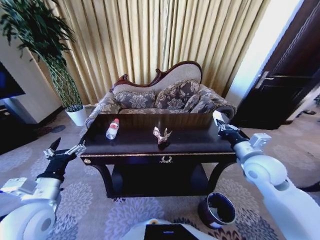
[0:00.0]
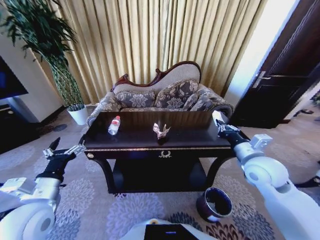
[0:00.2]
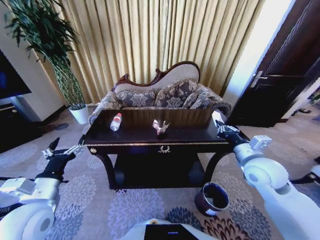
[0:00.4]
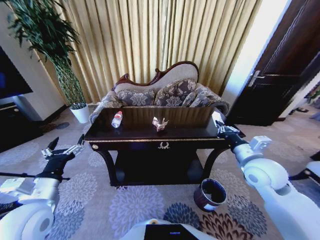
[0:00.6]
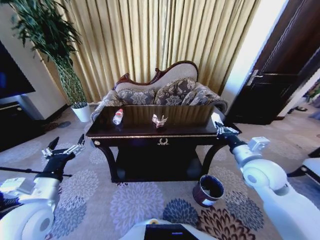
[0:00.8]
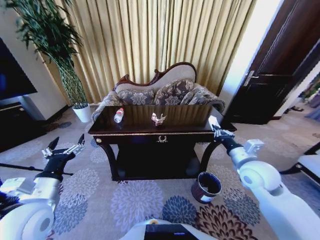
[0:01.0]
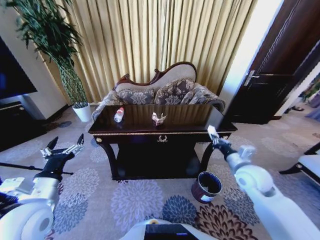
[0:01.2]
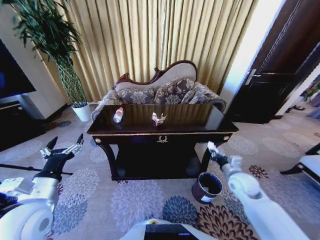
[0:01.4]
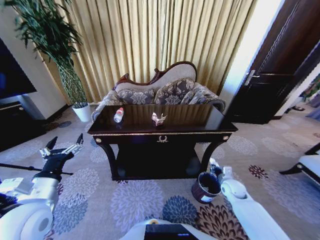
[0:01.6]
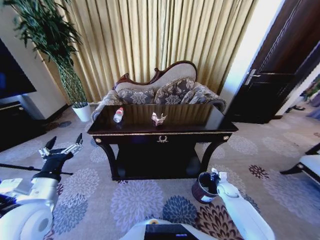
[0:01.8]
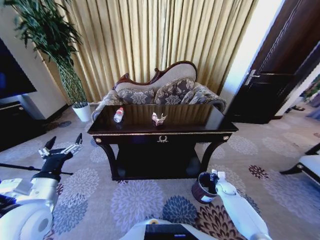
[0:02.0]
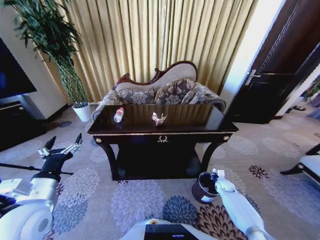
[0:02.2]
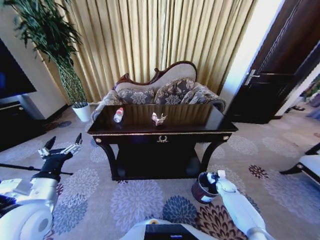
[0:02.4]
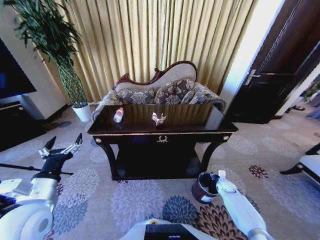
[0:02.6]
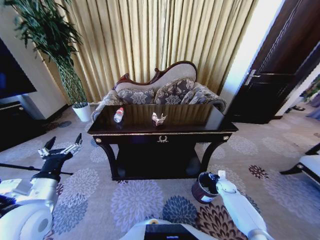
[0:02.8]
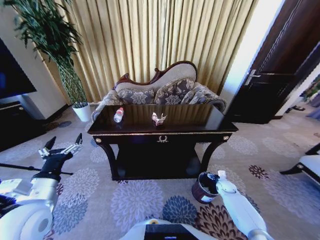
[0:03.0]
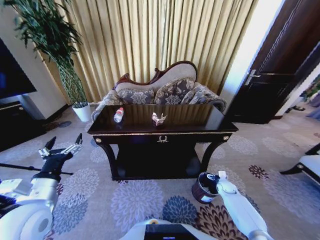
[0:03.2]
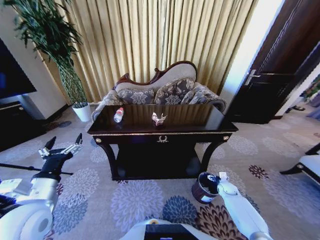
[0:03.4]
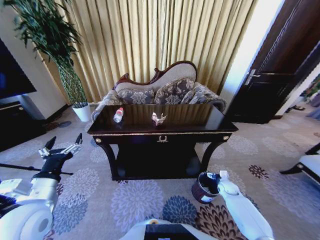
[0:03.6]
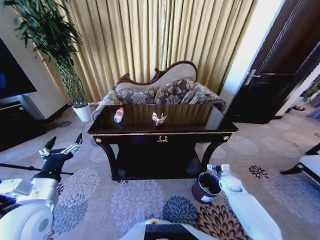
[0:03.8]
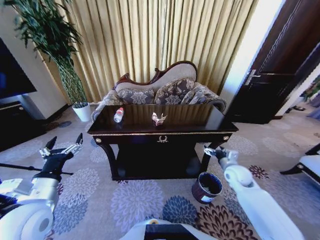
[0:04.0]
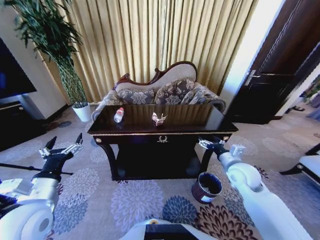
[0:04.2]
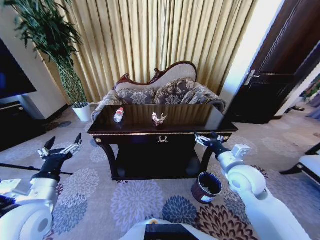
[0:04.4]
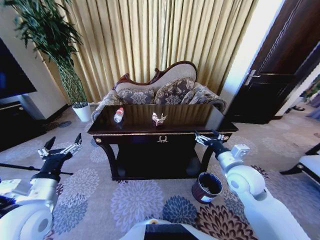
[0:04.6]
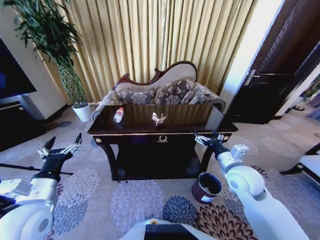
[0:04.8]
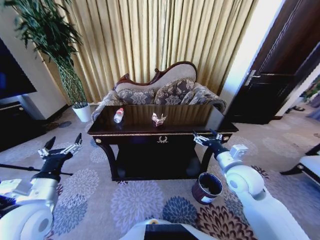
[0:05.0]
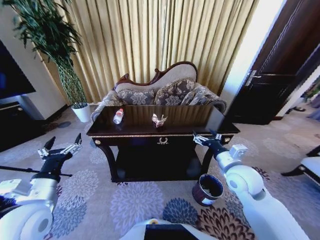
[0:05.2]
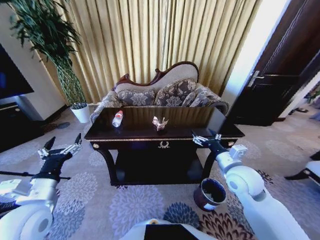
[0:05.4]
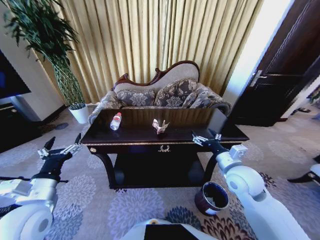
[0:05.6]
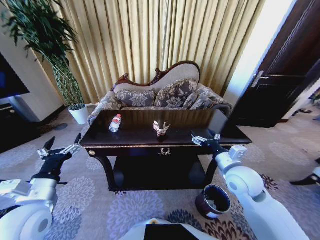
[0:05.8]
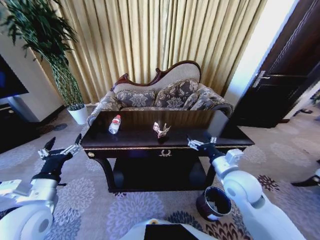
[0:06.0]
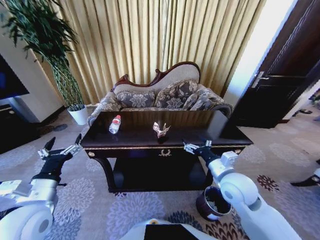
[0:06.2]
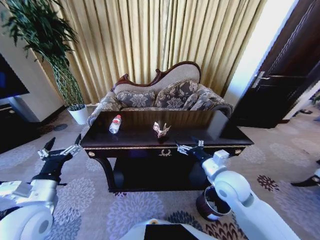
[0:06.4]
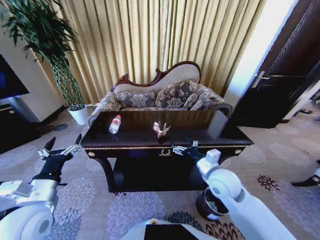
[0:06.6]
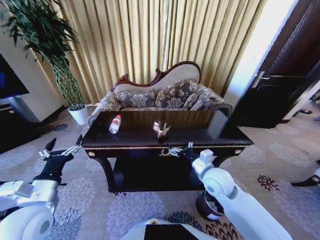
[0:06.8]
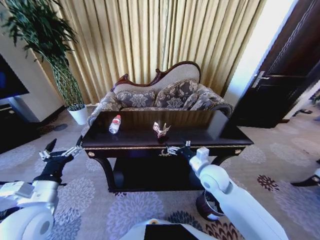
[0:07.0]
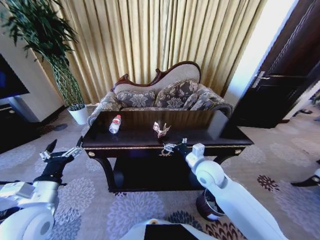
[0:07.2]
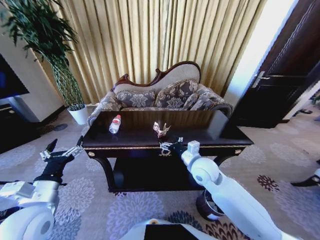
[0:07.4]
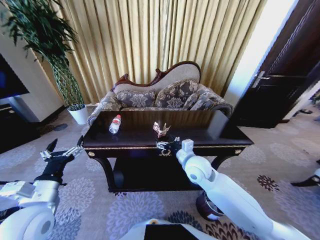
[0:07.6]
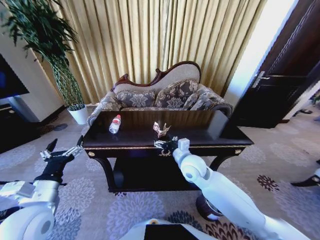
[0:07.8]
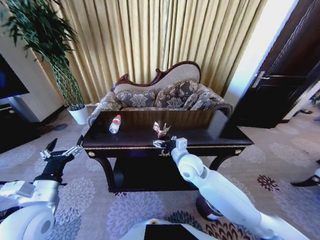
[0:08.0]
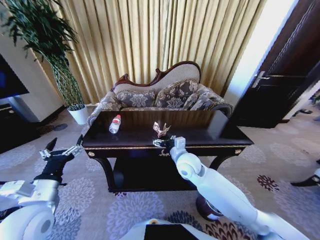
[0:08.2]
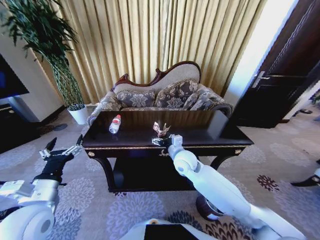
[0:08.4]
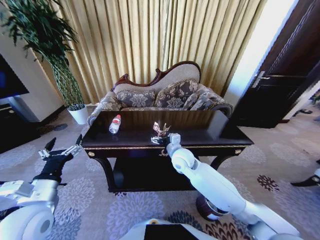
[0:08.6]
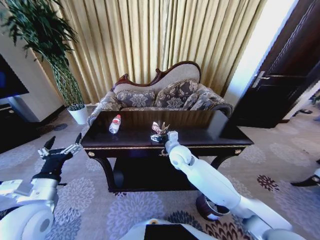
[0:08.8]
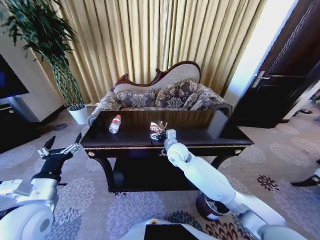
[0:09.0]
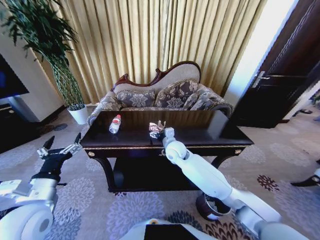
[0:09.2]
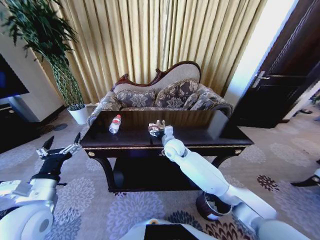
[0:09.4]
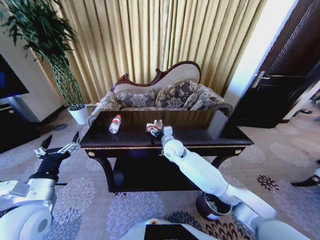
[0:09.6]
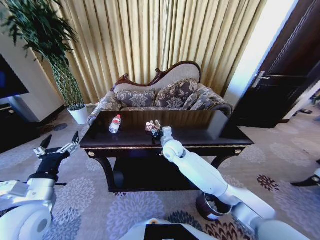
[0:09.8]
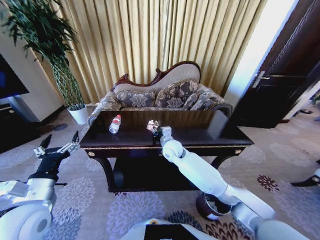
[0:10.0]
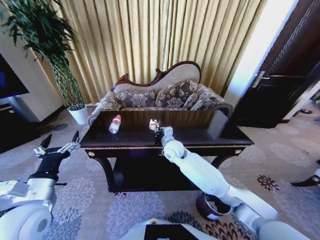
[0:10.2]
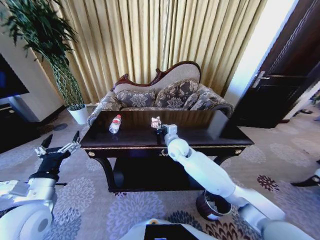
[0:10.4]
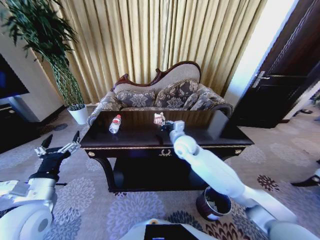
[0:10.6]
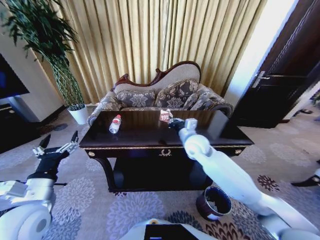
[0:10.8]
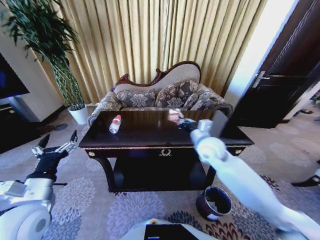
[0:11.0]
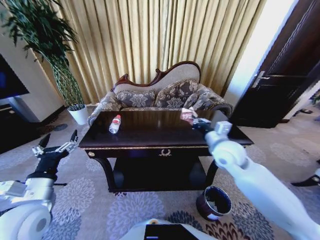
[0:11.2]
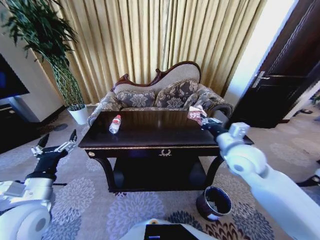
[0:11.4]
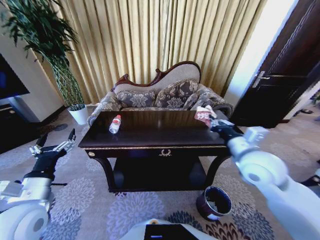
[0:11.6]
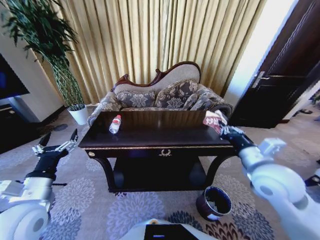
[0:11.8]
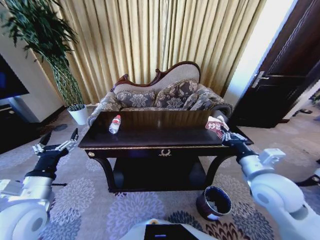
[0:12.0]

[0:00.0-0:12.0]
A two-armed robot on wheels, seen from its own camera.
Task of the whole recording: Move to the front of the table and place the trash on the table into the trash bin.
0:00.0 to 0:01.6: The right gripper is displaced downward by about 25 cm.
0:01.6 to 0:03.0: The right gripper shifts about 10 cm downward, and opens up.
0:03.0 to 0:04.4: The right gripper goes roughly 35 cm upward and to the left.
0:06.0 to 0:07.6: The right gripper moves to the left and forward, approximately 15 cm.
0:07.6 to 0:09.0: The right gripper travels forward and to the left by some 10 cm.
0:09.0 to 0:10.4: The right gripper closes.
0:10.4 to 0:12.0: The right gripper travels to the right and backward by some 30 cm.

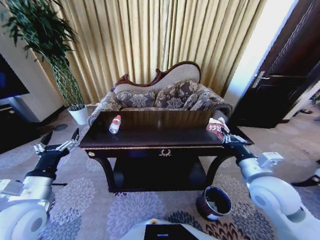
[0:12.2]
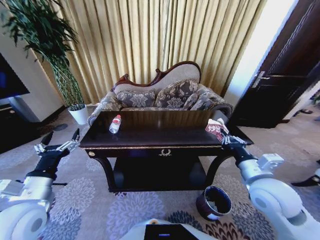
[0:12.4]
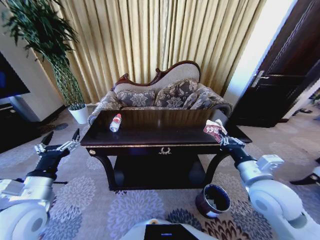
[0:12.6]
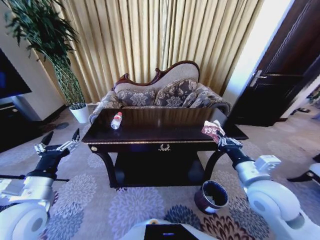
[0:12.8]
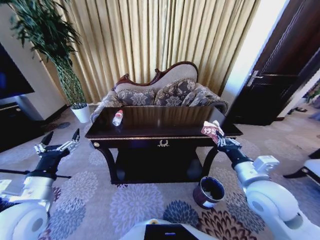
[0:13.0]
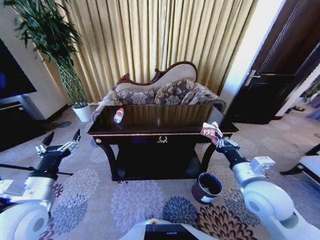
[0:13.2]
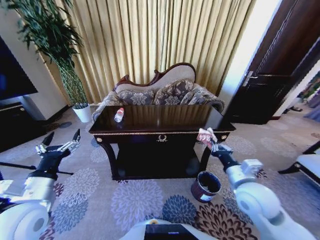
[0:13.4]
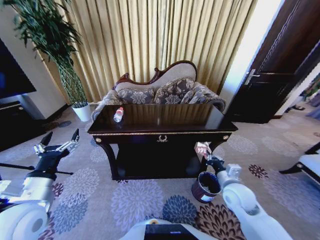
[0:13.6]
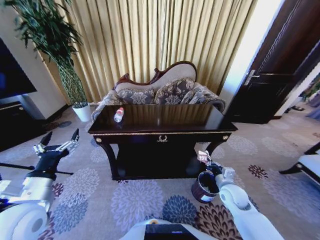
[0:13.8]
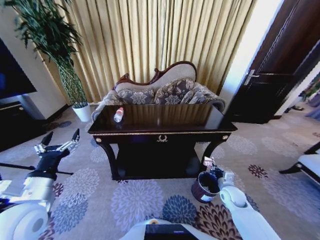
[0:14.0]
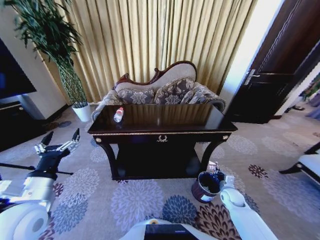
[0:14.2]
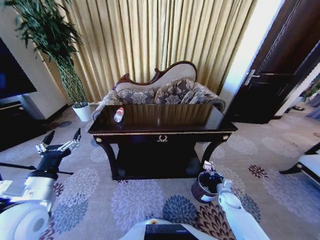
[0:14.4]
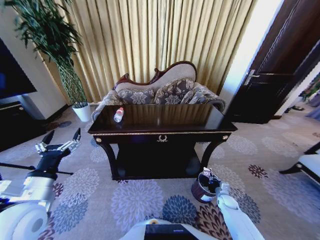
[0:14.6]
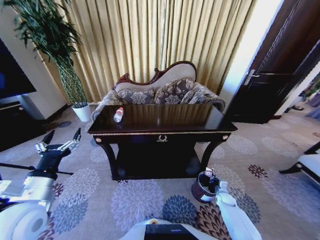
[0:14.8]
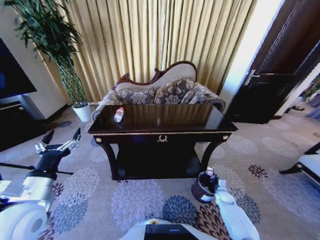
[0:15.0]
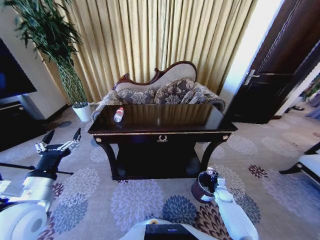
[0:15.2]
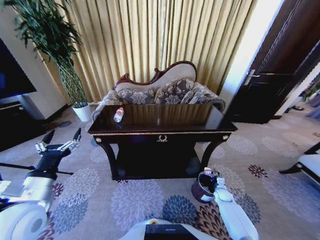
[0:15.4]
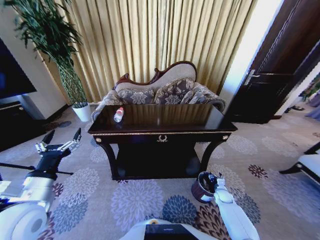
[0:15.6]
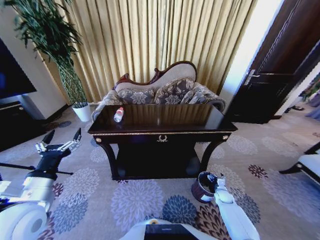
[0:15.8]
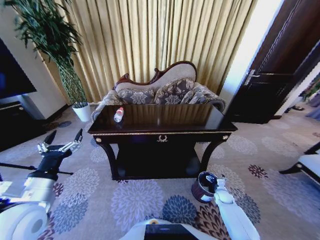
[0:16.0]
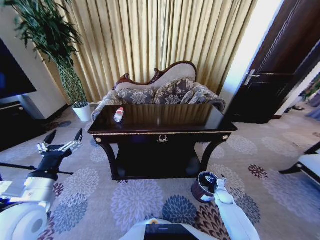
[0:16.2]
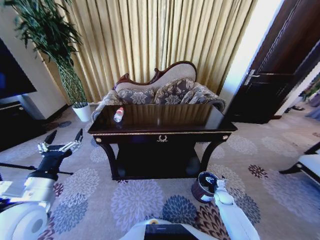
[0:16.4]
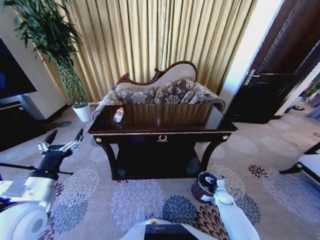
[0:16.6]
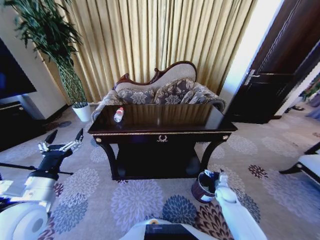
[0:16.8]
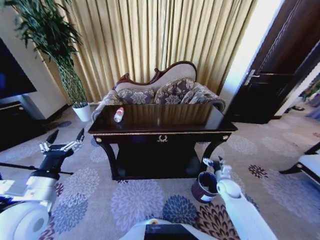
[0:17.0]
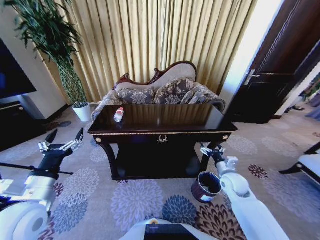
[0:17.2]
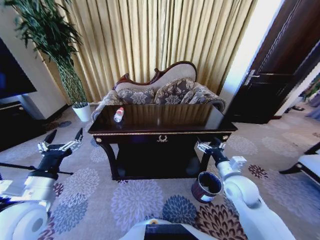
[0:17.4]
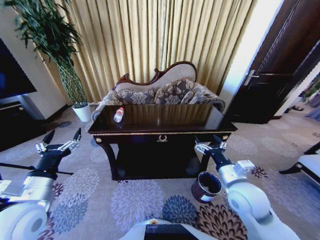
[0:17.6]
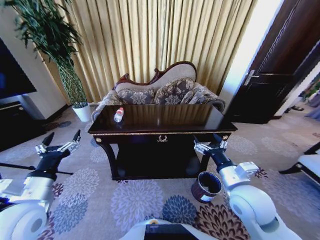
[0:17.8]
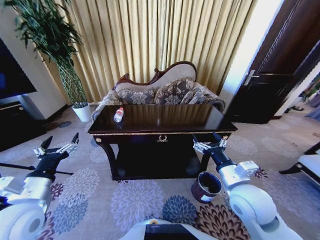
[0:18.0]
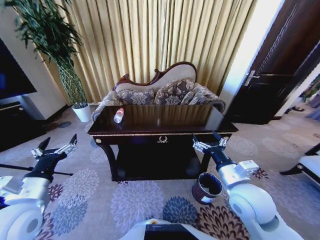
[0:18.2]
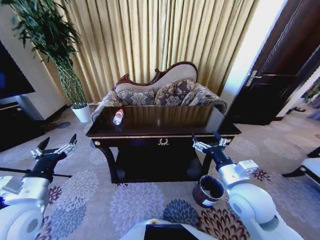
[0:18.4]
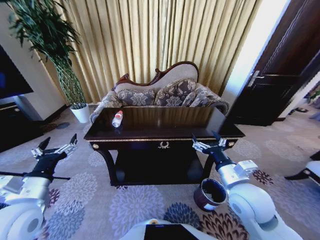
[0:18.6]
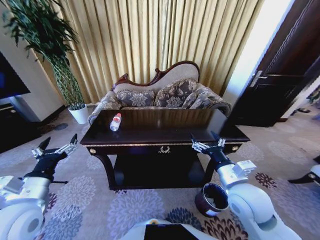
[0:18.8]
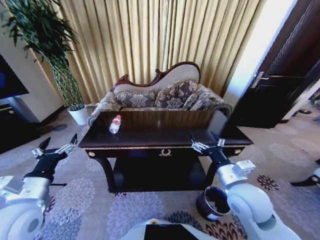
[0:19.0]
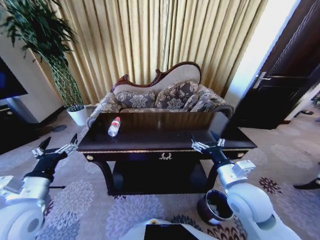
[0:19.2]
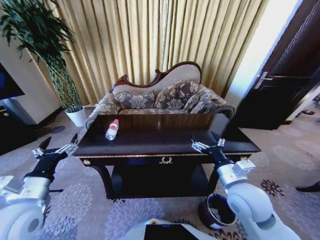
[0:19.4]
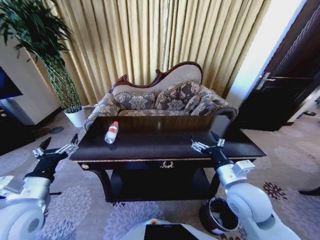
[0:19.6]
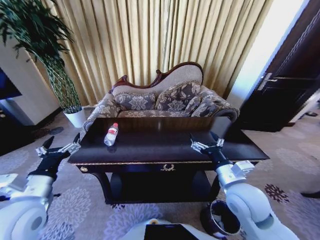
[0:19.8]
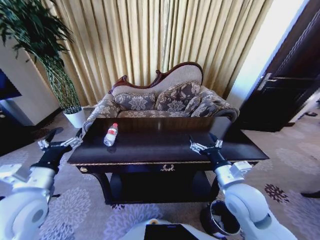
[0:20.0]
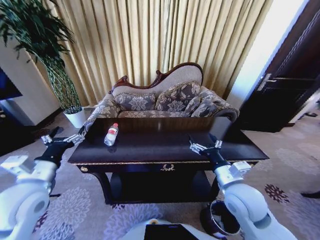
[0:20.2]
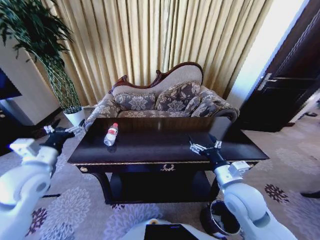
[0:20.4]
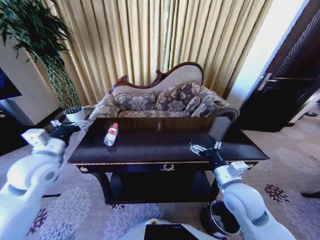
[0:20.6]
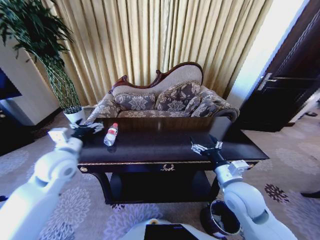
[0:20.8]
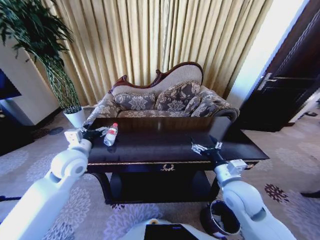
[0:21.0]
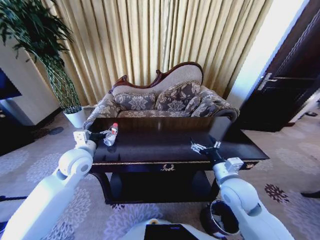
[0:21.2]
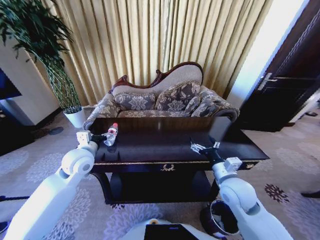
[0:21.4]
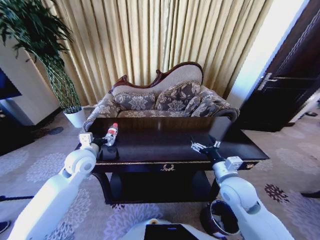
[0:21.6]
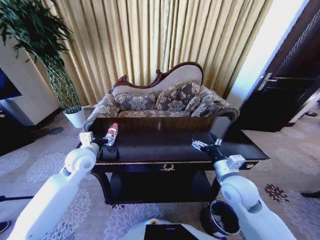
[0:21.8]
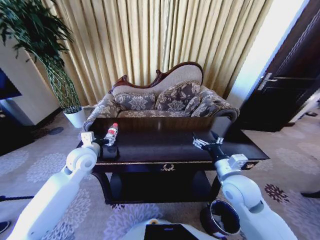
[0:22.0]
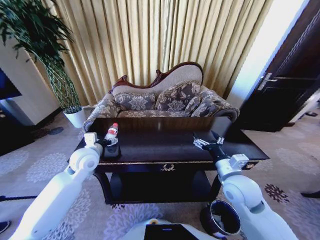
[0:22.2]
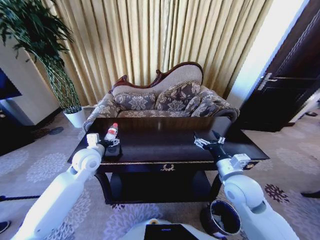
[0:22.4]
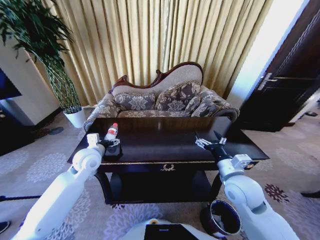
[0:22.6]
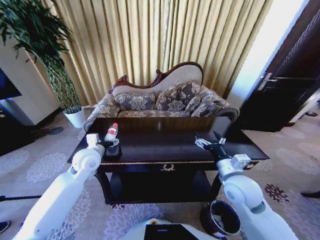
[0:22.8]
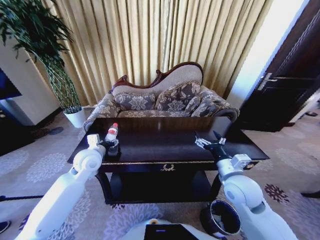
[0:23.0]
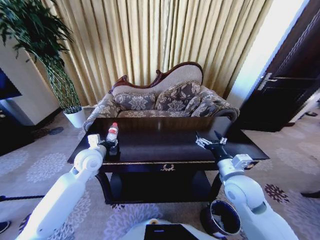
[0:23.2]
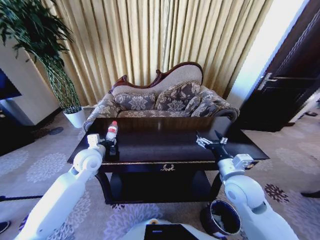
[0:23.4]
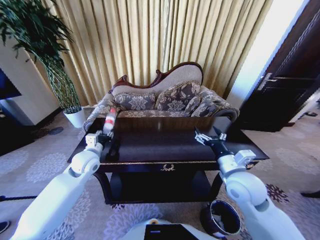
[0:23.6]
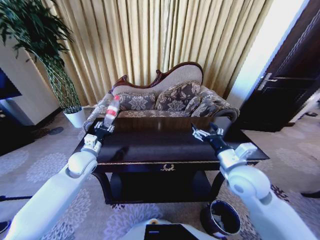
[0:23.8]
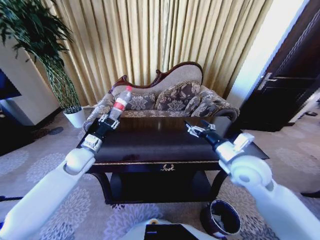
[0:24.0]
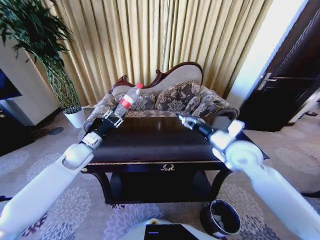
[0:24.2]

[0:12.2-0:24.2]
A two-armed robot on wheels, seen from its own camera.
Task of the whole recording: Move to the front of the table and place the trash on the table into the trash bin.
0:12.2 to 0:13.8: The right gripper goes roughly 20 cm downward.
0:13.8 to 0:15.2: The right gripper travels downward by approximately 20 cm.
0:15.2 to 0:16.6: The right gripper opens its fingers.
0:16.6 to 0:18.2: The right gripper travels upward and to the left by some 40 cm.
0:19.8 to 0:21.2: The left gripper goes roughly 15 cm forward.
0:21.2 to 0:22.6: The grippers stay close to where they were, moving slightly.
0:22.6 to 0:24.2: The right gripper is displaced forward and upward by roughly 10 cm; the left gripper moves some 5 cm, and closes up.
